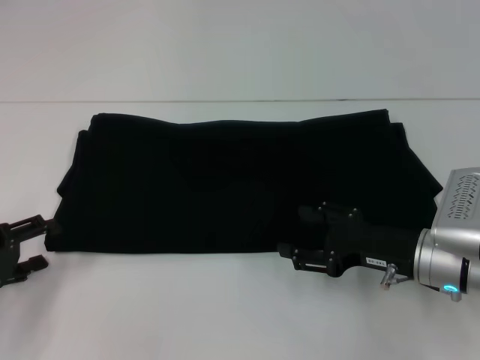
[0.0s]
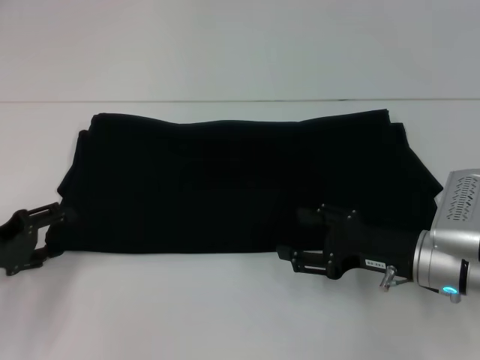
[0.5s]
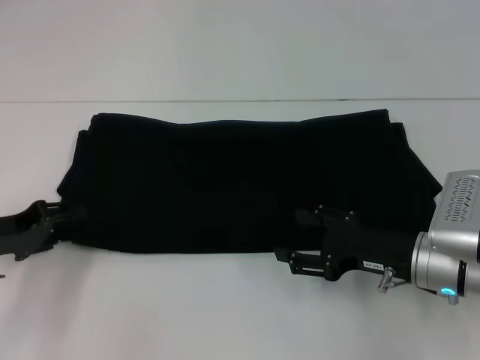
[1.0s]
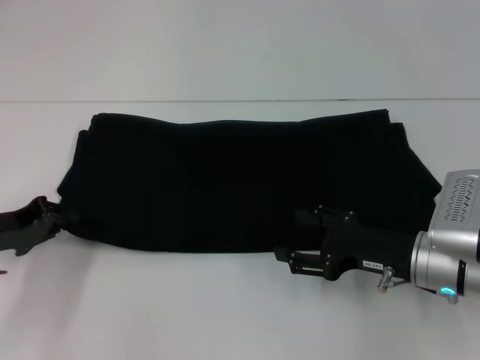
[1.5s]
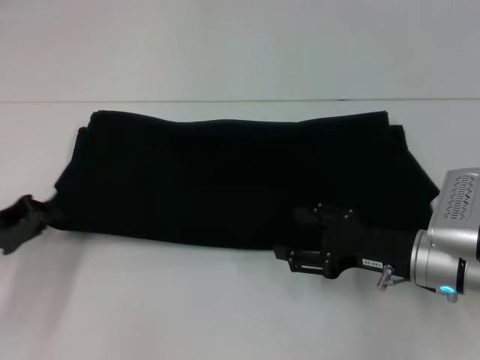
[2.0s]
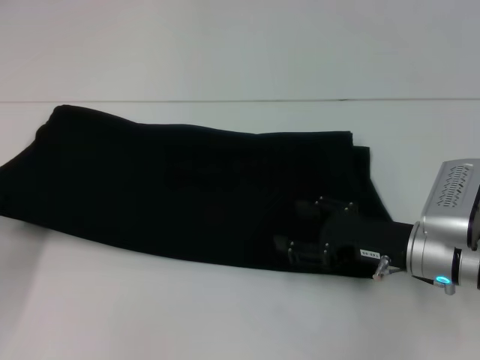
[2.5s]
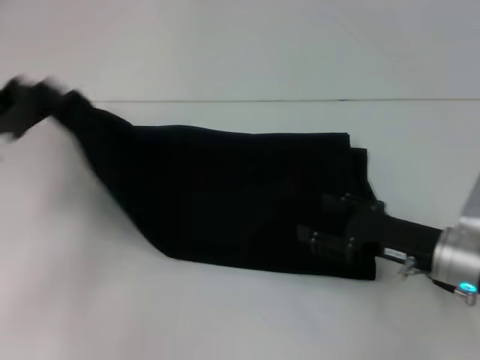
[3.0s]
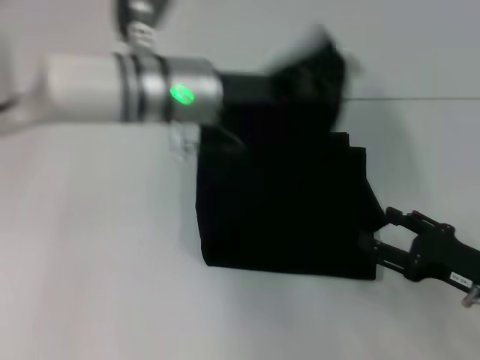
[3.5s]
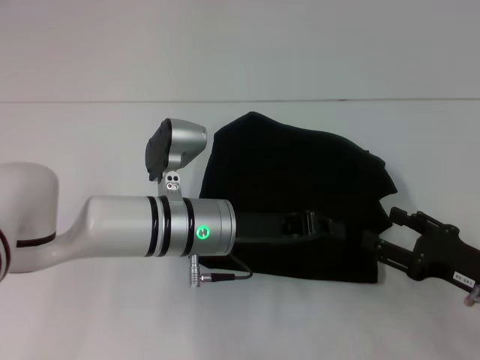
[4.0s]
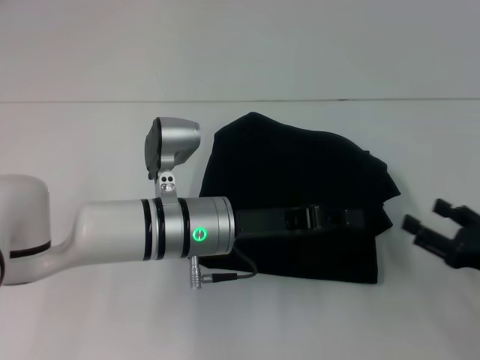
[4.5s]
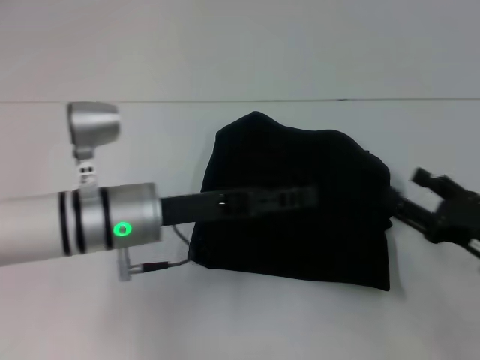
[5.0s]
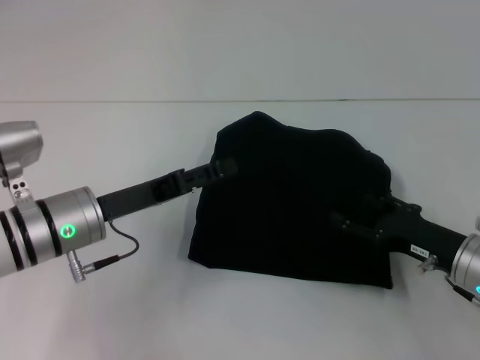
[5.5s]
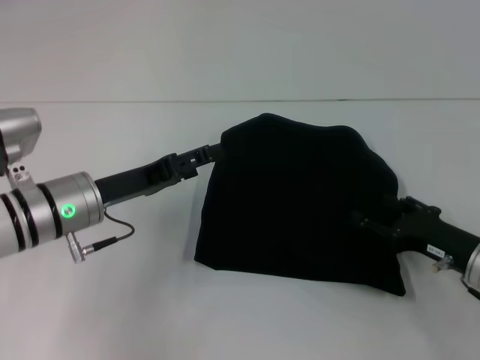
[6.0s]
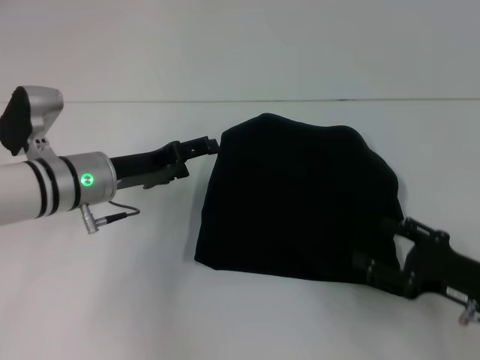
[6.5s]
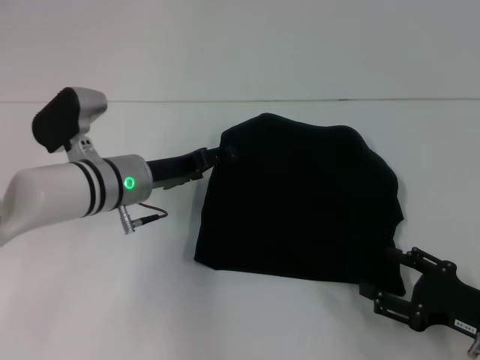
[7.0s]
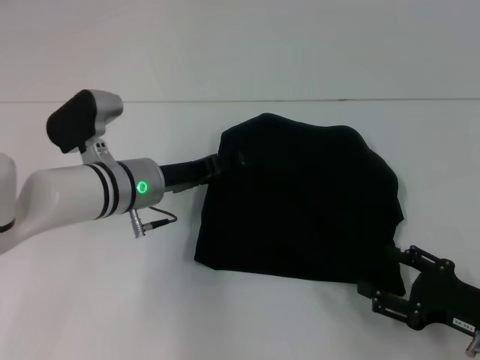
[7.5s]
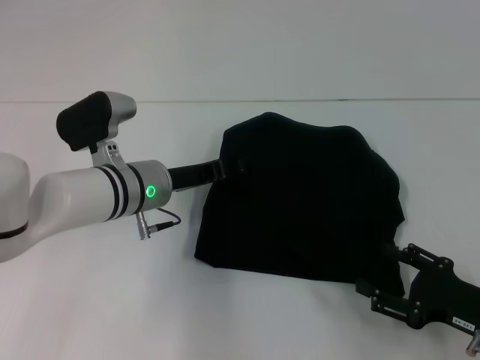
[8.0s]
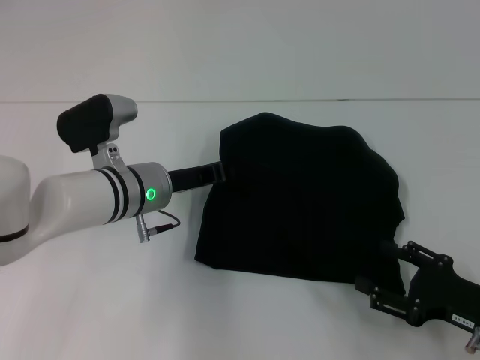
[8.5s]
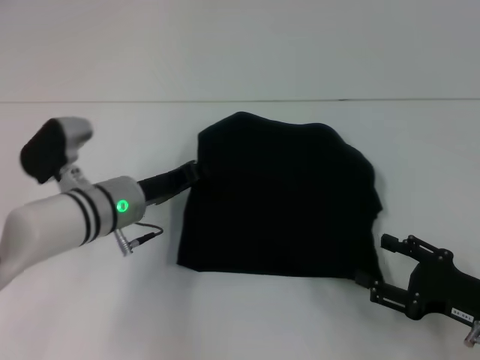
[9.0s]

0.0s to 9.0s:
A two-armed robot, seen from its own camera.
Step, 0.0s to 4.5s: Fold the clothes with your left hand.
0.0s to 2.0s: The left gripper closes up.
2.0s to 4.5s: The left gripper is displaced to the right by about 25 cm. The right gripper goes some 10 cm to the right and backward.
4.5s to 7.0s: The left gripper heads to the left and forward, covering approximately 10 cm, and opens up.
7.0s to 9.0s: The left gripper closes its fingers.

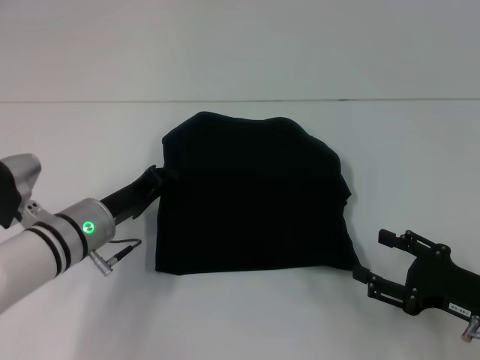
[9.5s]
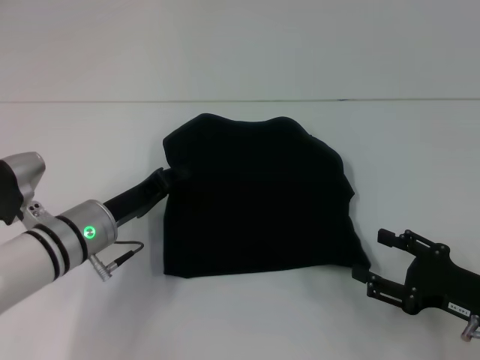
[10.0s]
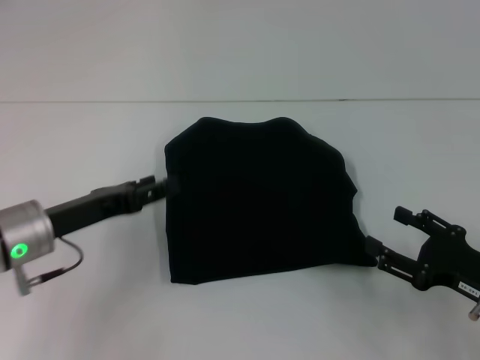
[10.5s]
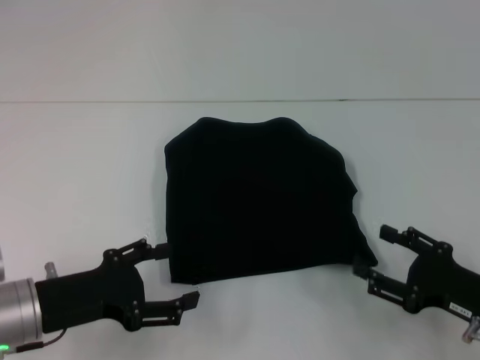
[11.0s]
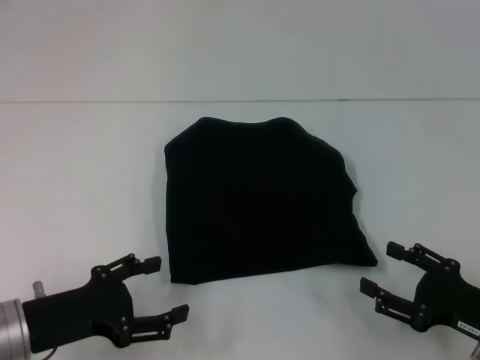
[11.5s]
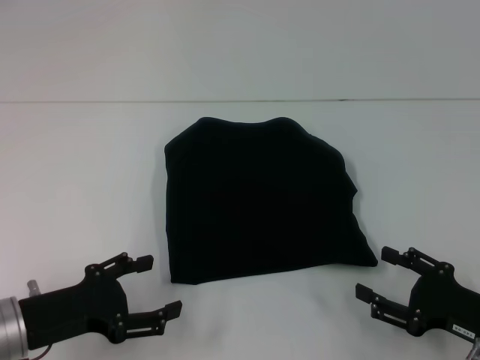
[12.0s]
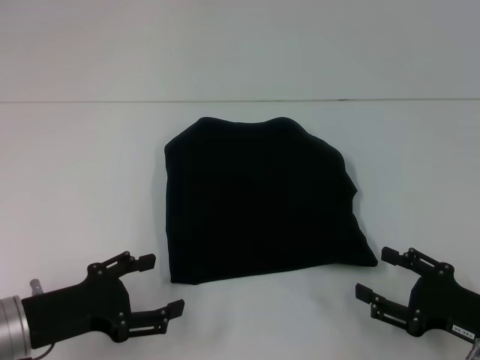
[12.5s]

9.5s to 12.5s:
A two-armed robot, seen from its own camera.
9.5s to 11.0s: The left gripper moves backward, approximately 10 cm, and opens up.
11.0s to 12.5s: The grippers move only a little.
